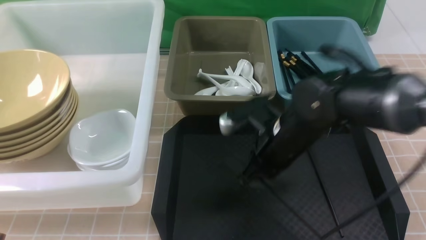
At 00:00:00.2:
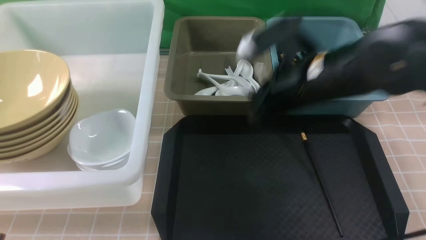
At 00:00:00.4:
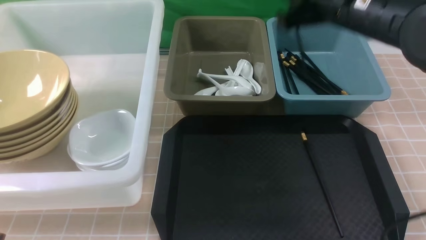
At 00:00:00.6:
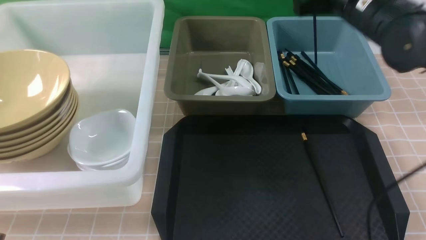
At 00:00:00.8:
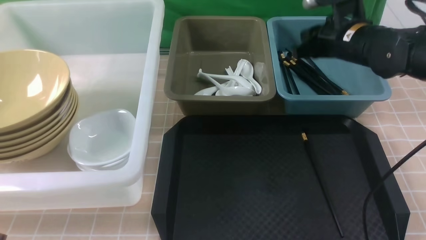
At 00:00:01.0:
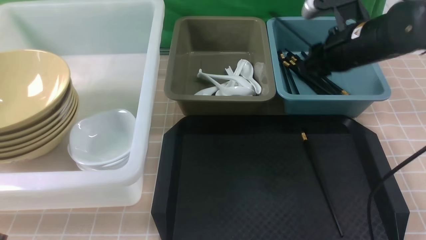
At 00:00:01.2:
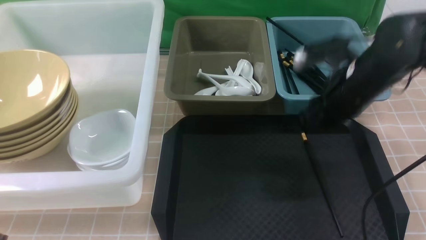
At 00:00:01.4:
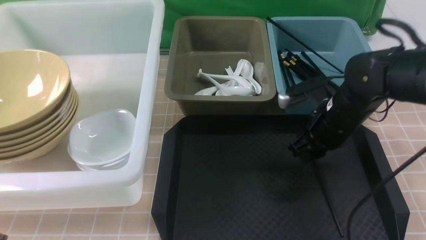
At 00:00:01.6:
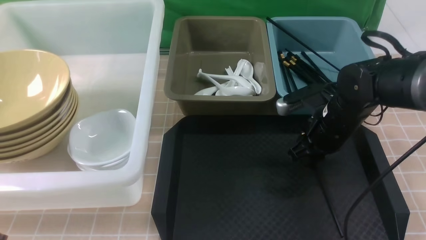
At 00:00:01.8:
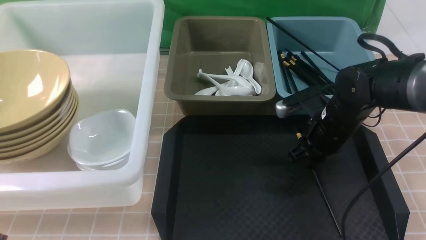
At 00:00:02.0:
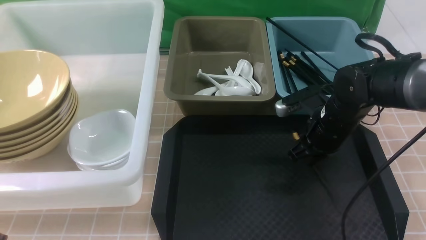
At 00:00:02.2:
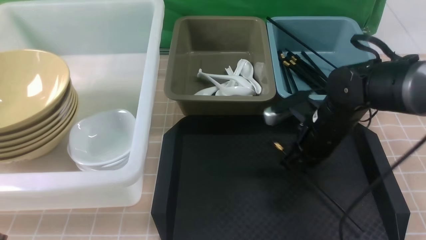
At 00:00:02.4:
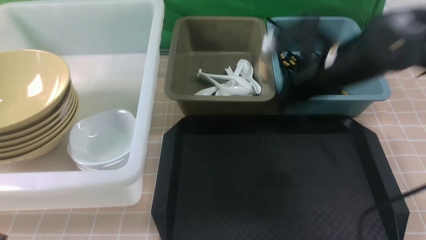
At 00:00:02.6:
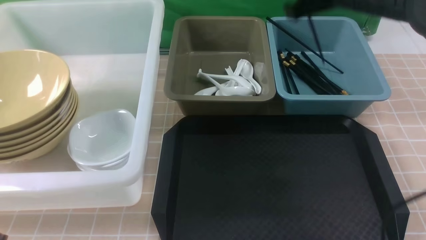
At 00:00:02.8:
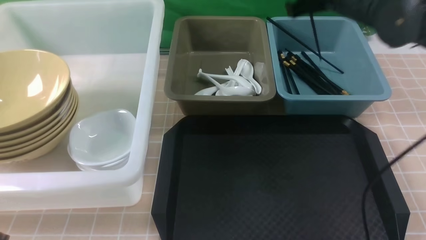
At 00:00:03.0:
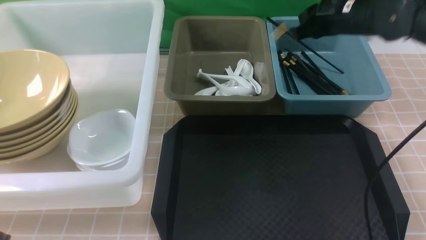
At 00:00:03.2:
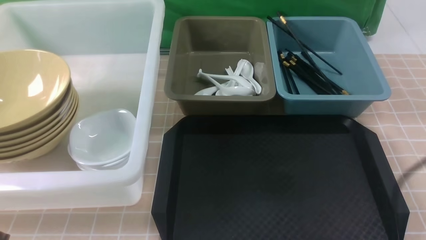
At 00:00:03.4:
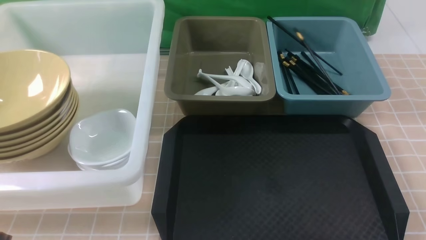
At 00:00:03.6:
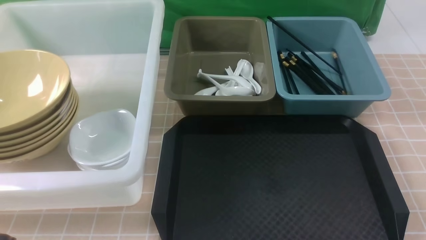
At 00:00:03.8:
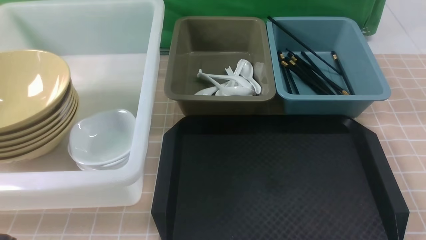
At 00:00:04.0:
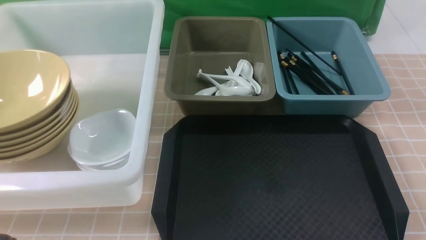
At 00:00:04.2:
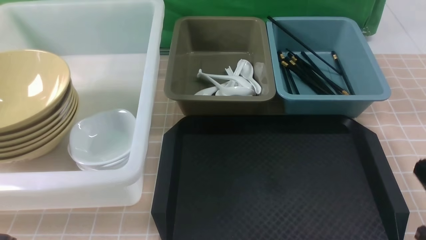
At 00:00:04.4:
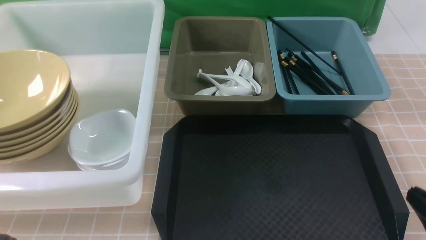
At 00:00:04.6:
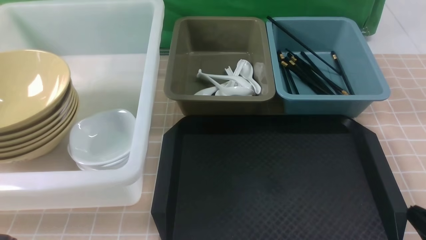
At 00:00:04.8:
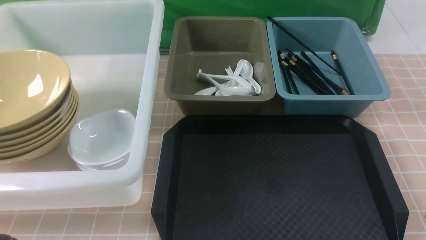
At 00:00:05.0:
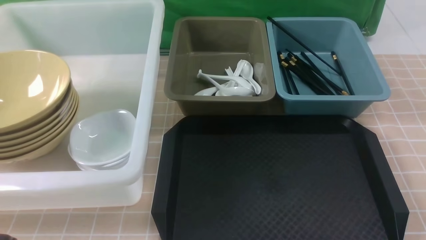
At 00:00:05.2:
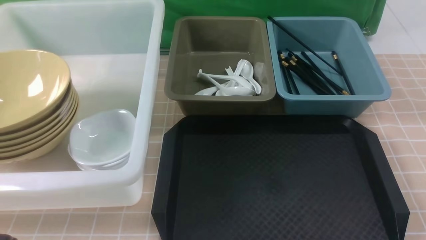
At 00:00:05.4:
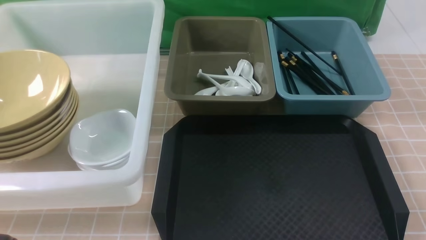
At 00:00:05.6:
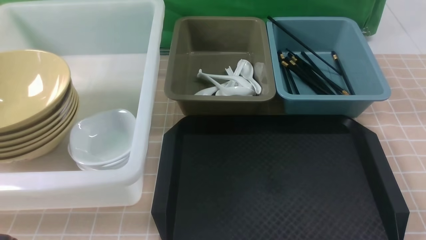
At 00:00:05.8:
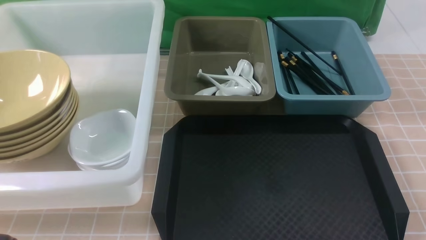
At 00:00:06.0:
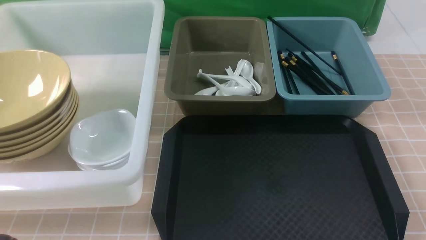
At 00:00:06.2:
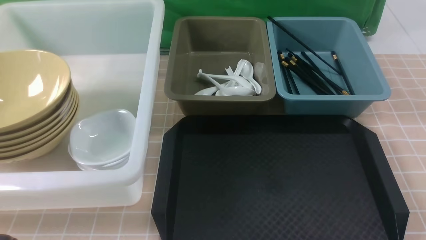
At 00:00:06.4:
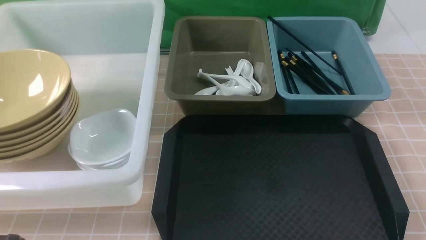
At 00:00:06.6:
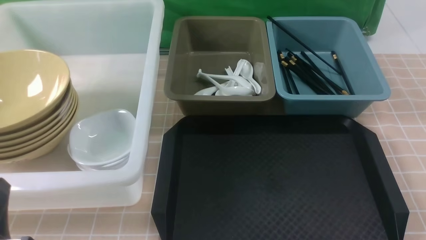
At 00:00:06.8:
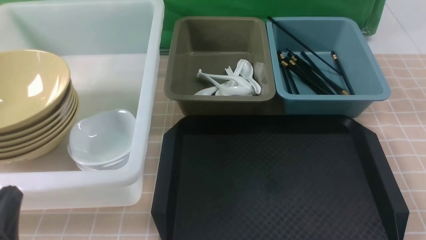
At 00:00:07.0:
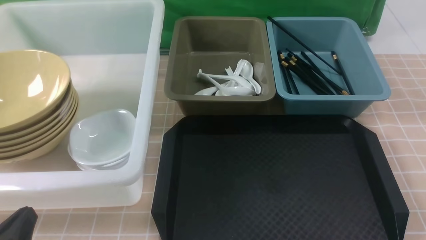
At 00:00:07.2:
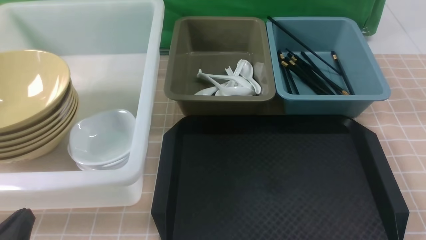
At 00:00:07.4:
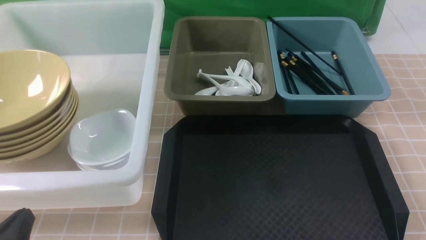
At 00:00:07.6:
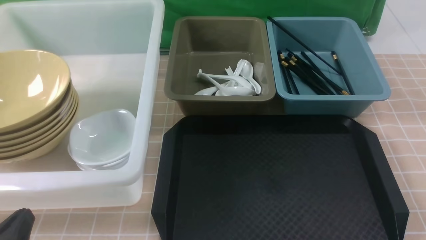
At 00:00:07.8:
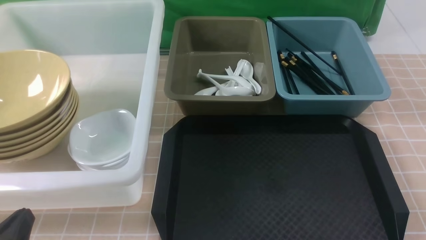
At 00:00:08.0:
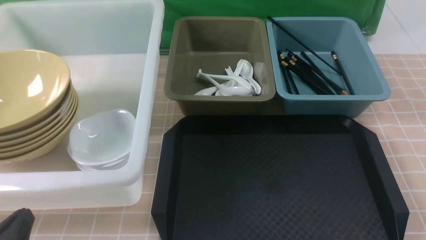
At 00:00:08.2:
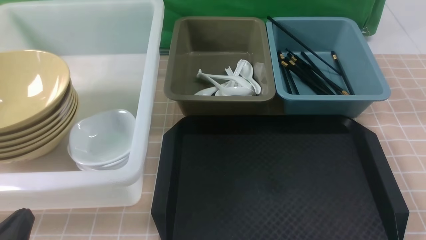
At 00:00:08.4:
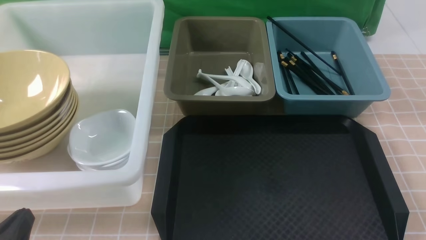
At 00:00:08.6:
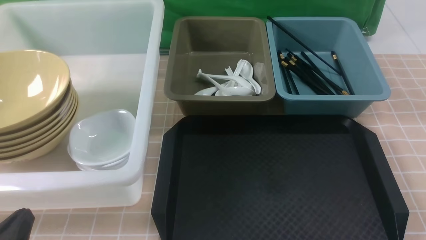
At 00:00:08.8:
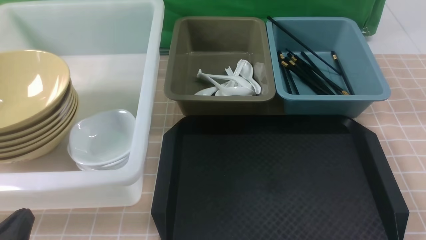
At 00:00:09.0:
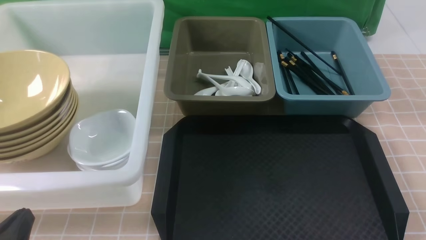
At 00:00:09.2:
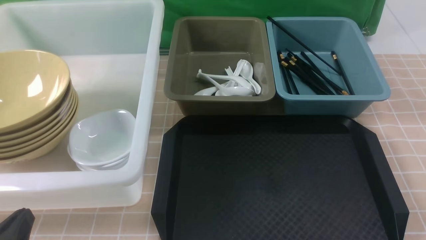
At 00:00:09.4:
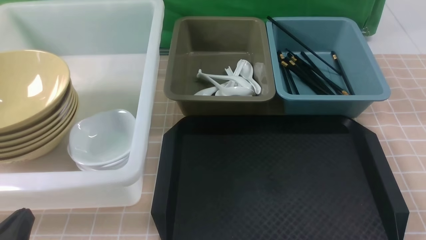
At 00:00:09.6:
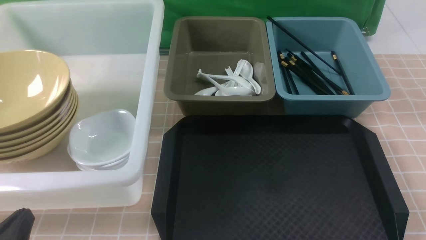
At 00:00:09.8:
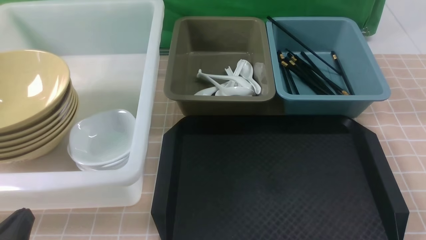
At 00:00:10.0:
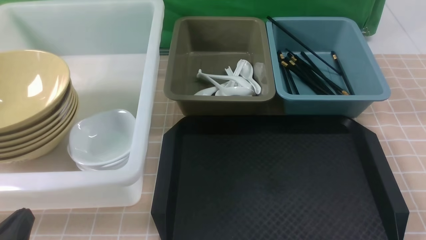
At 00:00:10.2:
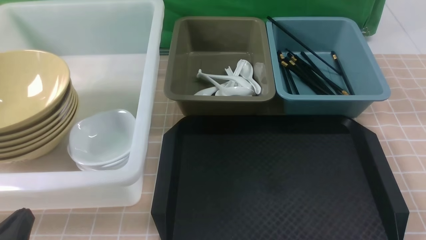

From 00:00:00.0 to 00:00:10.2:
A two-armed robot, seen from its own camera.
Task of the whole recording: on brown table put chopsticks spoon bowls plates into blue grey white boxes.
Step, from 00:00:00.2 to 00:00:01.0: use the right arm to put a chopstick into the small storage box on the right.
Step, from 00:00:01.2 to 00:00:02.4: use the right arm to grab a chopstick.
Step, from 00:00:02.6 to 00:00:03.2: use the right arm to put a chopstick into the small storage box on the right.
From 00:00:00.0 to 00:00:01.4: The right gripper moves to the right, roughly 10 cm, reaches roughly 15 cm upward, then returns, and opens its fingers.
From 00:00:01.4 to 00:00:03.0: The right gripper travels upward and forward by about 15 cm.
From 00:00:03.0 to 00:00:04.4: The right gripper heads backward and downward, covering approximately 35 cm.
From 00:00:05.8 to 00:00:07.2: The left gripper is displaced downward by about 10 cm.
From 00:00:07.2 to 00:00:10.2: Both grippers stay put.
